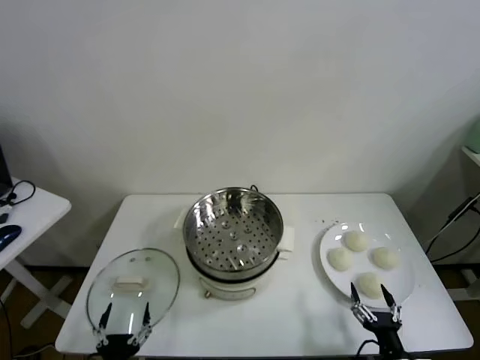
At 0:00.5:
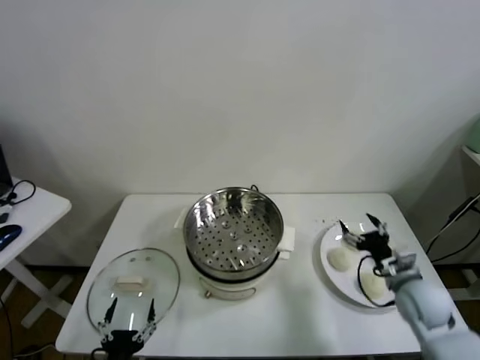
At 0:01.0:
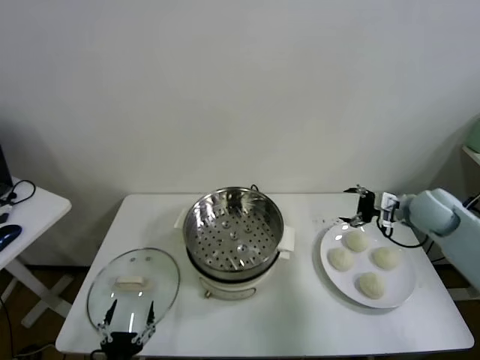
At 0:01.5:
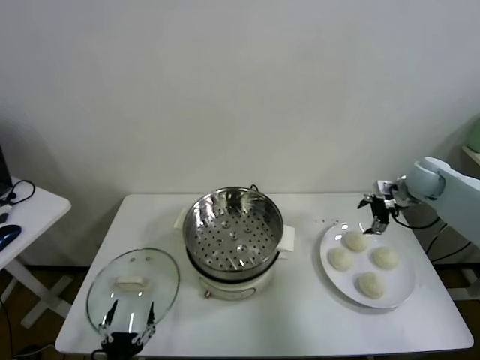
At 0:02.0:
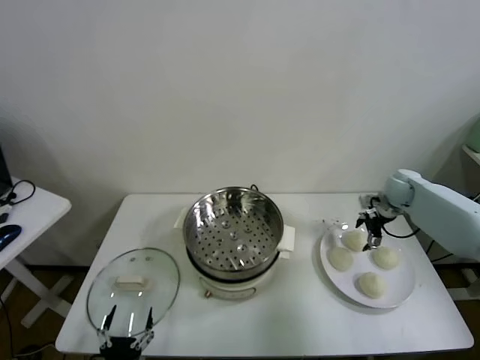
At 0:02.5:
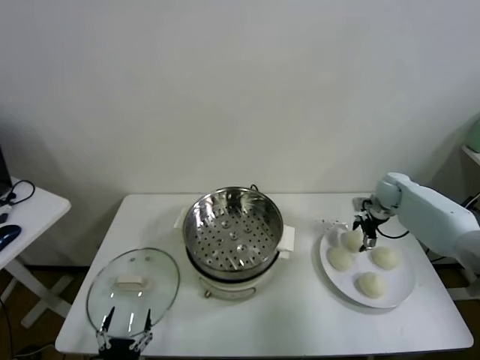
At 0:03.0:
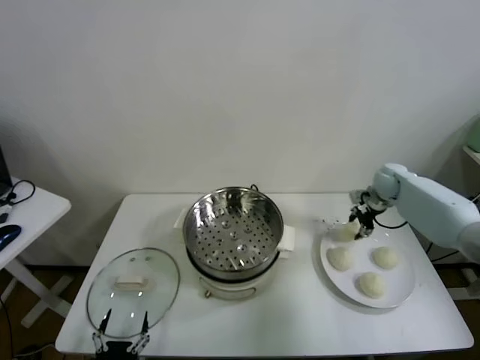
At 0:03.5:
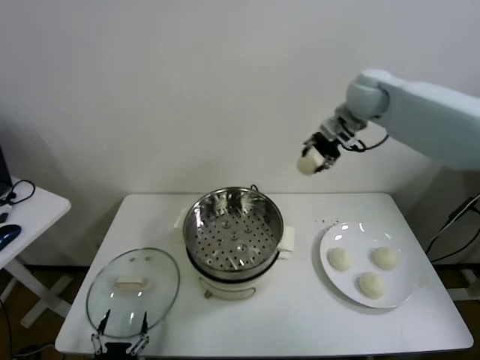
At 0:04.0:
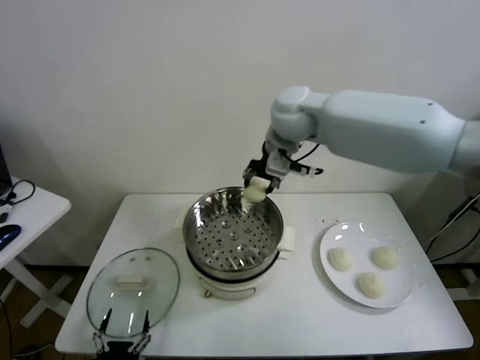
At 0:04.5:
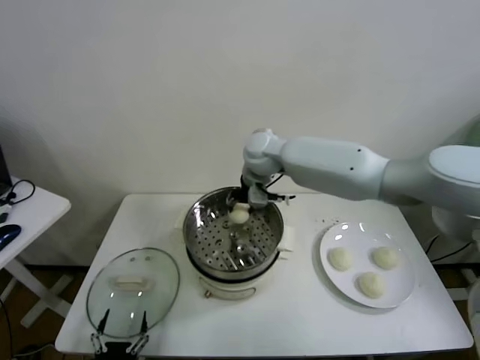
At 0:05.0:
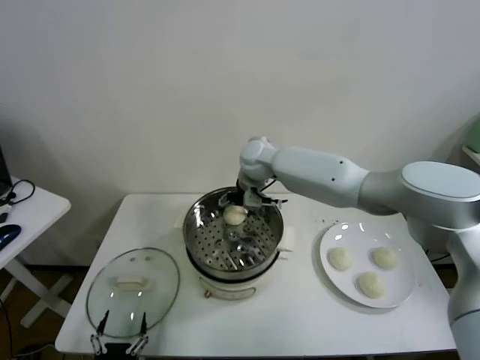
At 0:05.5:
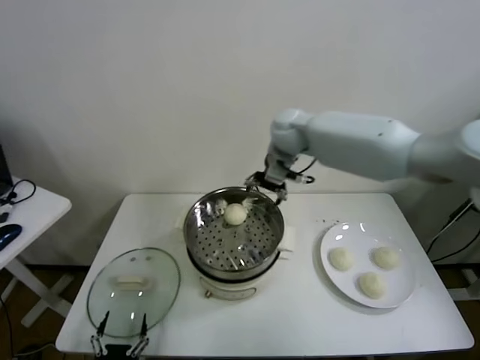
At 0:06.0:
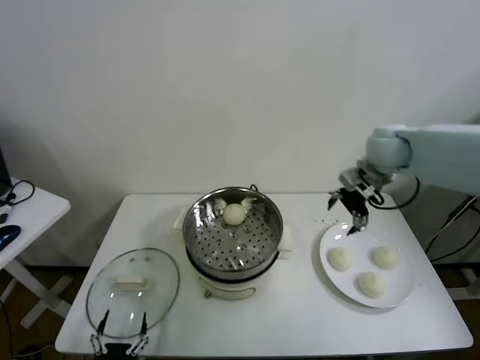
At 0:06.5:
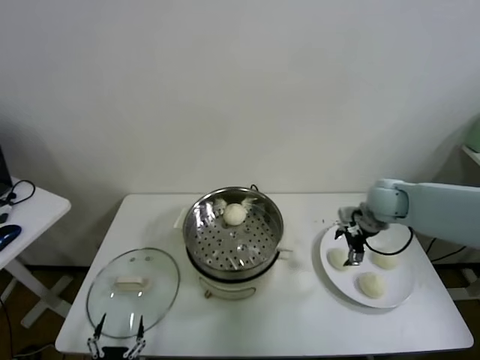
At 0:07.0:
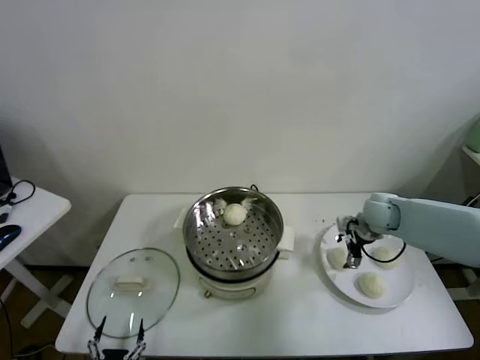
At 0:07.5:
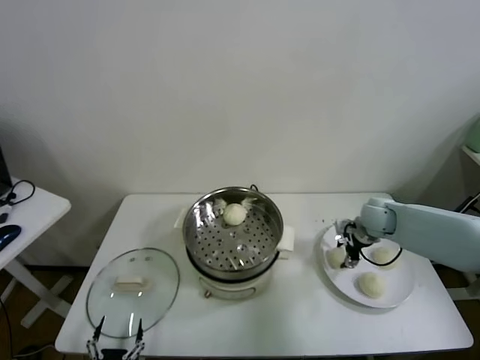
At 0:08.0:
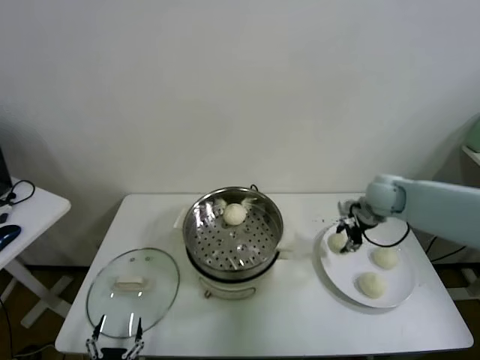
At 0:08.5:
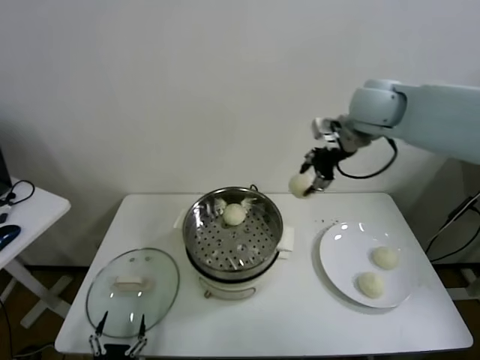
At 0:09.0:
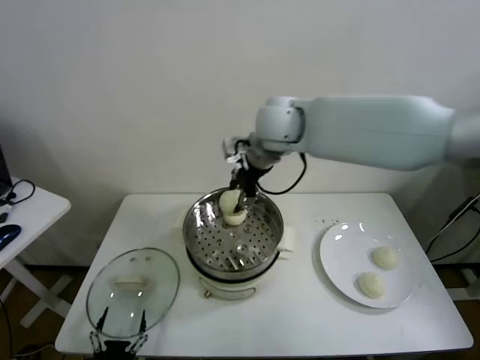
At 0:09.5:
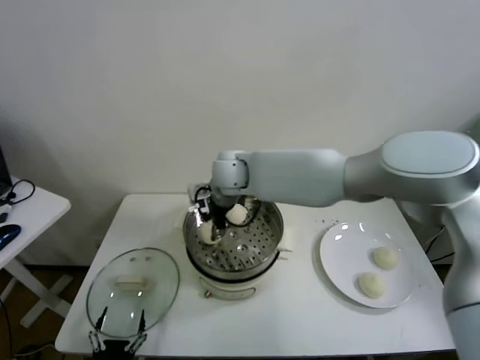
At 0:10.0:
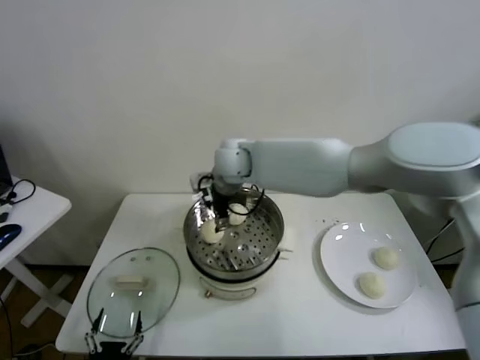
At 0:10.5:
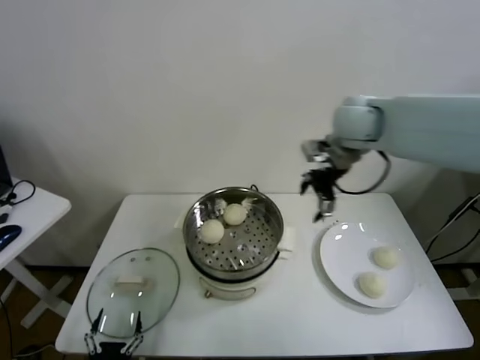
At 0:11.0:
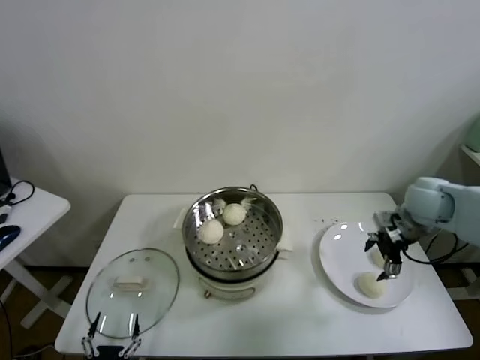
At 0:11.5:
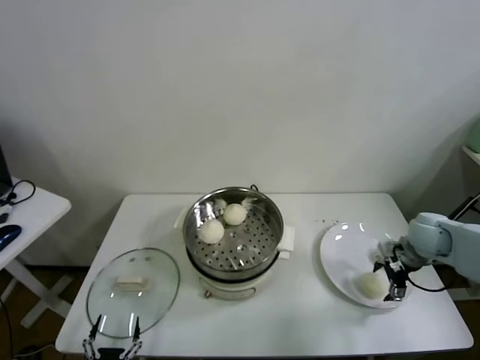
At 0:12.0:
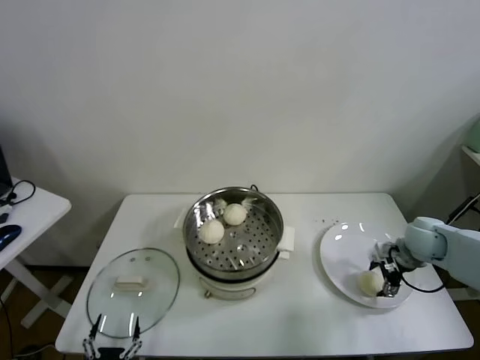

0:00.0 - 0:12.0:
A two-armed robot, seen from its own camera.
Task of the whole recording: take steamed baozi put them in steamer.
Step, 0:00.0 - 0:02.5: Grasp the baozi in the plate with right gripper.
Step, 0:03.0 - 0:05.0: Place the baozi on the steamer with right gripper.
Step, 0:05.5 - 0:07.5: Grasp the baozi in the plate with right gripper.
Step, 0:08.0 - 0:09.5: Place the baozi on the steamer with right gripper.
0:02.0 - 0:04.0: The right gripper shifts roughly 40 cm to the left and upward, and closes.
0:04.0 - 0:06.0: The right gripper goes some 25 cm to the right, and opens up.
0:06.0 - 0:08.0: The right gripper is displaced downward by roughly 10 cm, and closes.
0:08.0 - 0:10.0: The right gripper moves to the left, roughly 35 cm, and opens.
0:10.0 - 0:12.0: The right gripper shifts roughly 50 cm to the right and downward.

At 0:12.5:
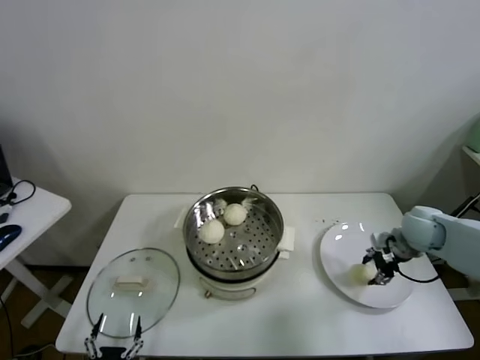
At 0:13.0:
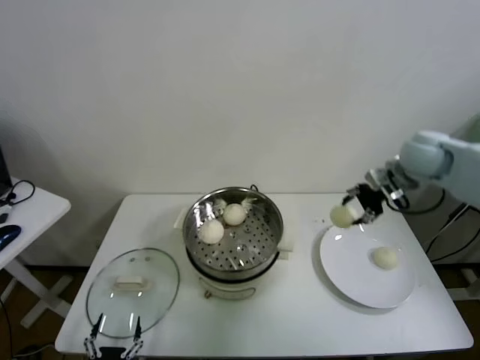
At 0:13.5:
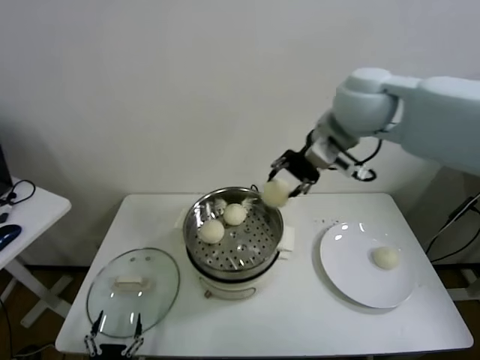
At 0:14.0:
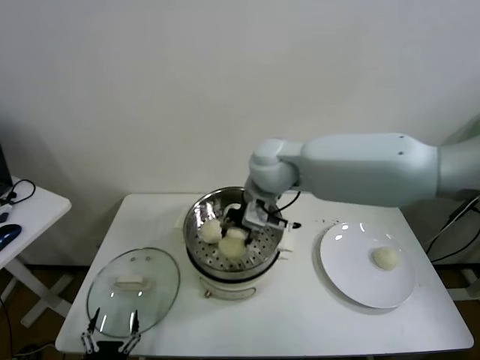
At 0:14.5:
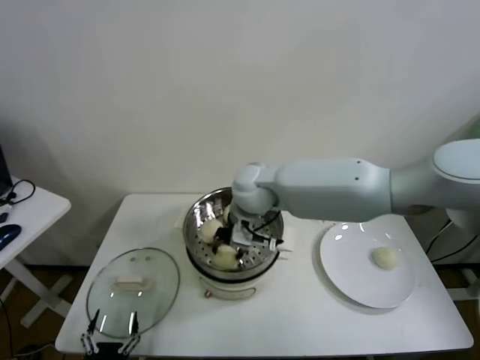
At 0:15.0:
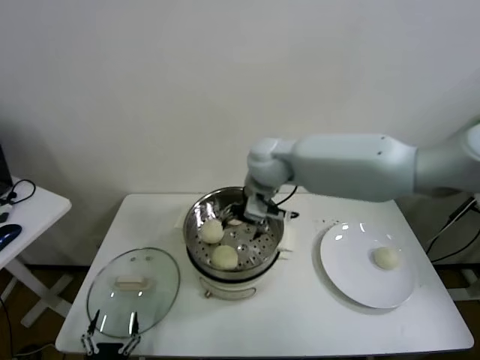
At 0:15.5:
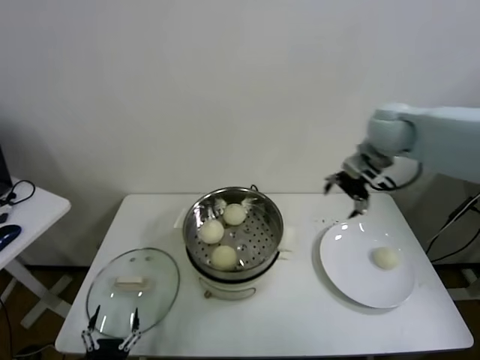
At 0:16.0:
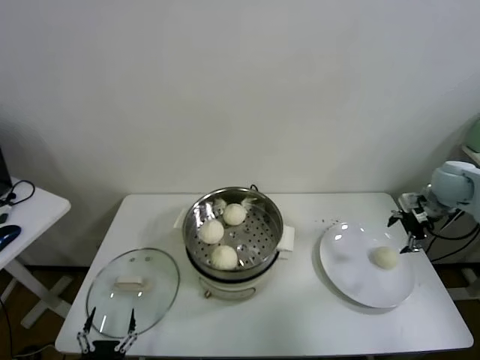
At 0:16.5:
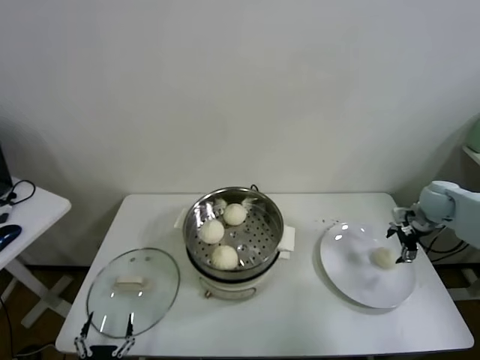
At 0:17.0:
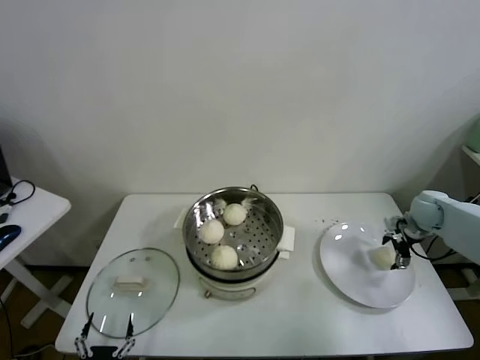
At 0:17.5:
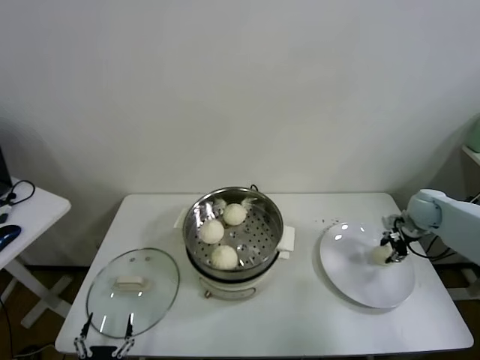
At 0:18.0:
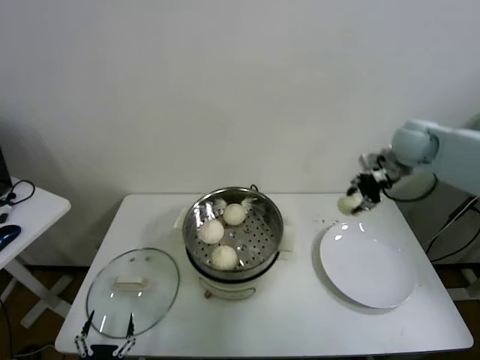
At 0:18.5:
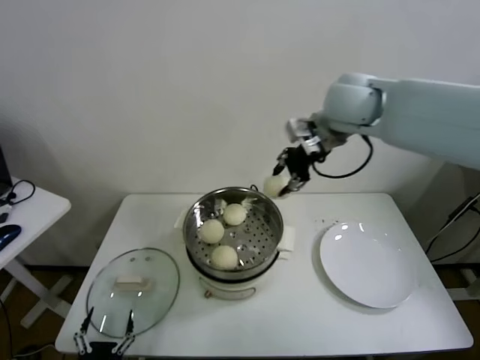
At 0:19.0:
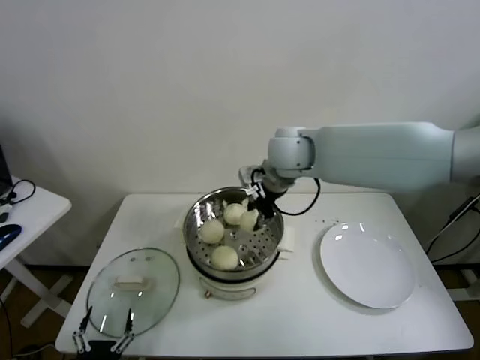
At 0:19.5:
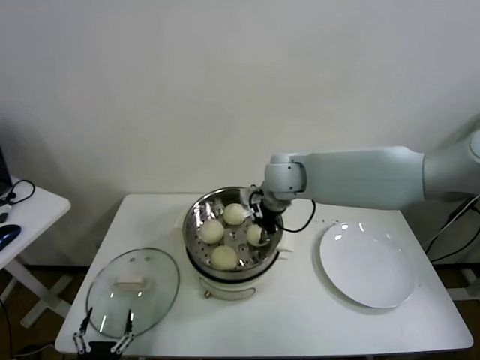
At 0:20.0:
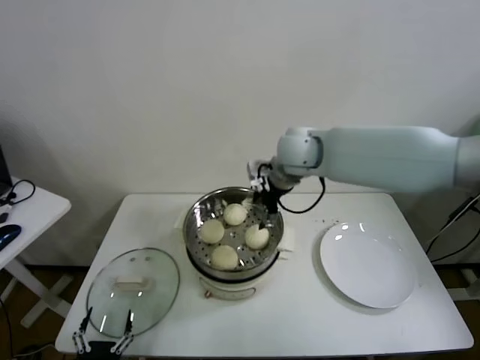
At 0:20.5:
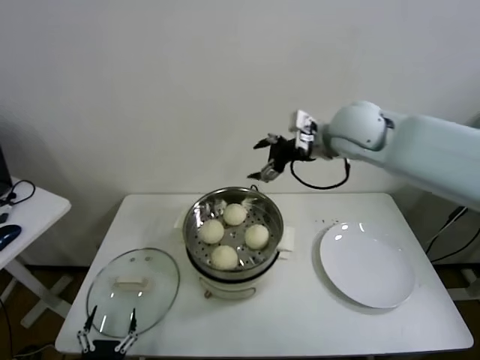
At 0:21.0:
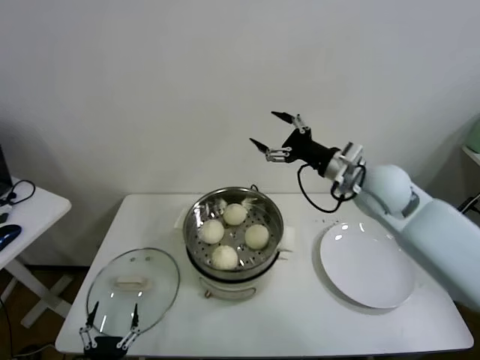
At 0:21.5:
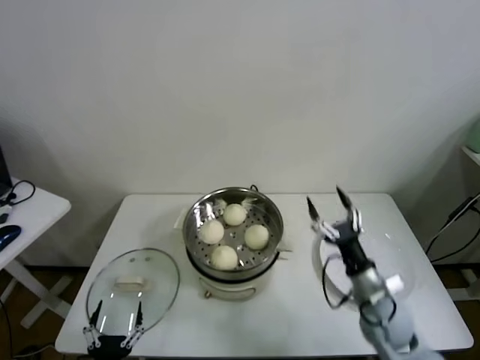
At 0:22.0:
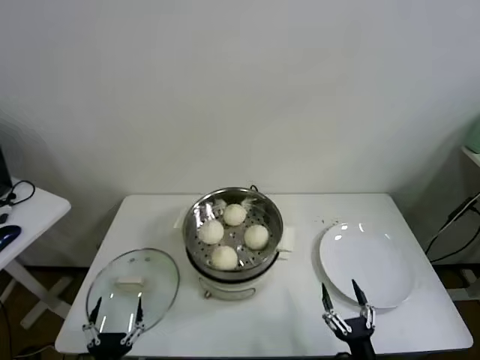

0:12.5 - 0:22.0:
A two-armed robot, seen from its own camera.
Task of the whole recording: take steamed baozi put them in steamer.
Step, 0:12.5 - 0:14.5: Place the baozi on the steamer with right gripper.
Step, 0:15.5 - 0:17.0: Grasp the baozi in the plate with right gripper.
Step, 0:17.5 - 0:19.5: Place the baozi on the steamer with right gripper.
0:12.5 - 0:14.5: The right gripper goes roughly 40 cm to the left.
0:14.5 - 0:16.5: The right gripper goes roughly 50 cm to the right, and opens up.
0:16.5 - 0:18.0: The right gripper is displaced upward and to the left by about 15 cm, and closes.
0:18.0 - 0:20.0: The right gripper travels to the left by approximately 25 cm, and opens up.
0:20.0 - 0:22.0: The right gripper shifts about 60 cm backward, downward and to the right.
